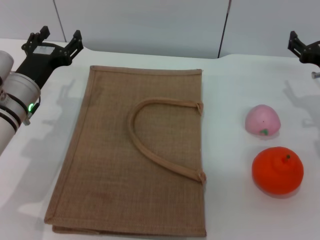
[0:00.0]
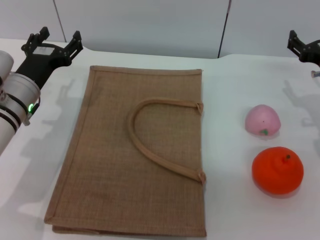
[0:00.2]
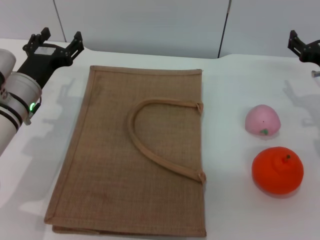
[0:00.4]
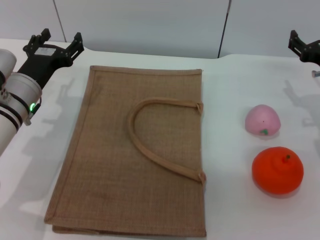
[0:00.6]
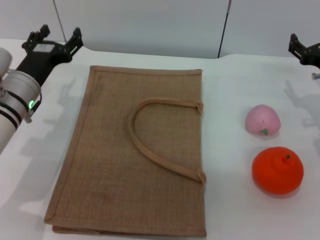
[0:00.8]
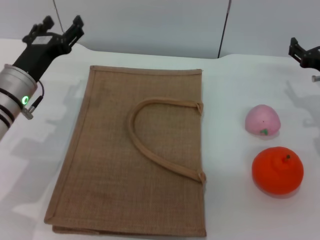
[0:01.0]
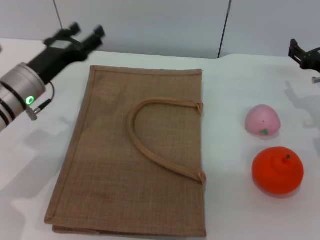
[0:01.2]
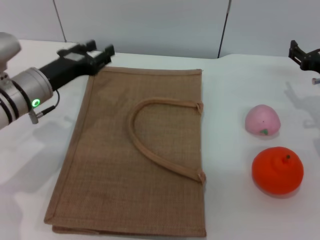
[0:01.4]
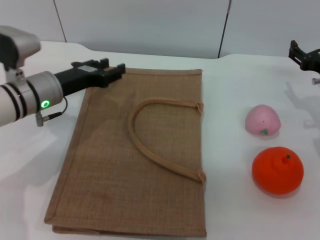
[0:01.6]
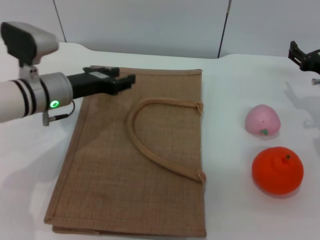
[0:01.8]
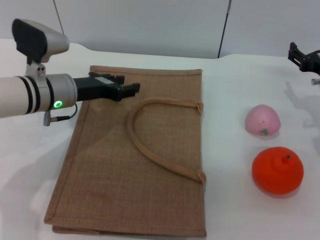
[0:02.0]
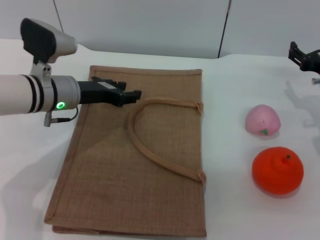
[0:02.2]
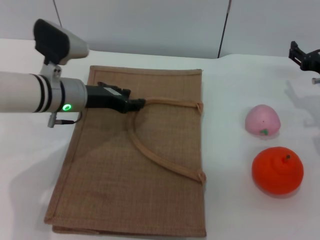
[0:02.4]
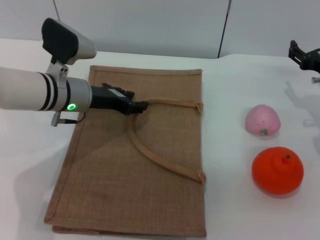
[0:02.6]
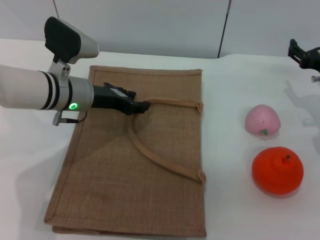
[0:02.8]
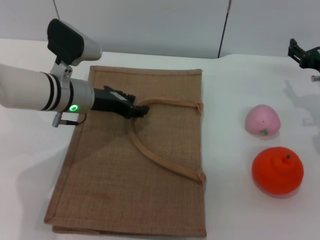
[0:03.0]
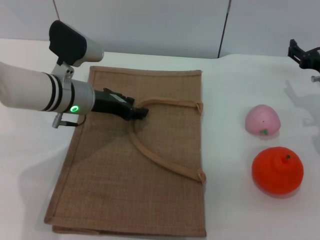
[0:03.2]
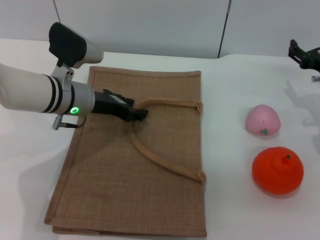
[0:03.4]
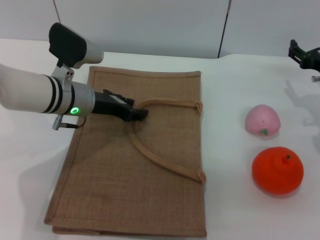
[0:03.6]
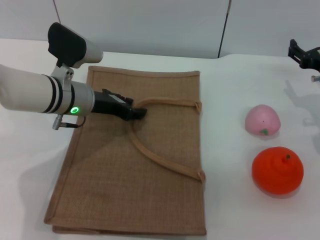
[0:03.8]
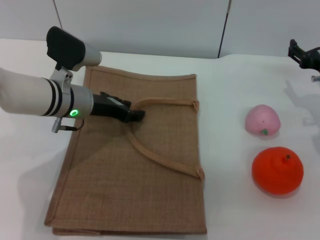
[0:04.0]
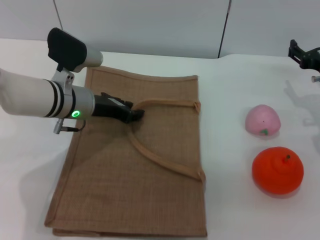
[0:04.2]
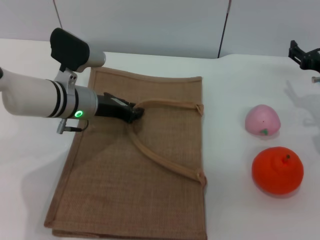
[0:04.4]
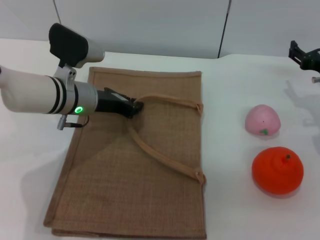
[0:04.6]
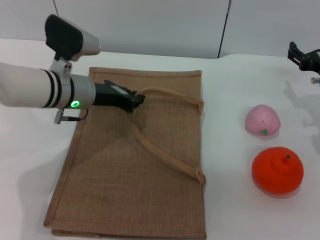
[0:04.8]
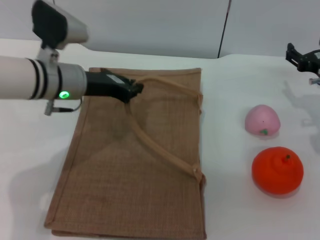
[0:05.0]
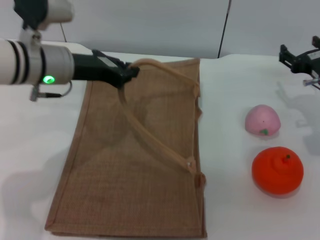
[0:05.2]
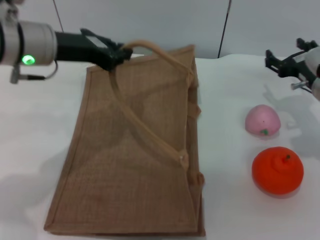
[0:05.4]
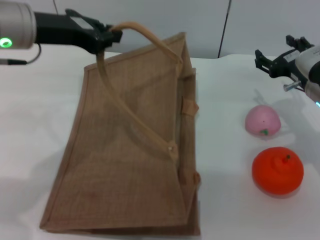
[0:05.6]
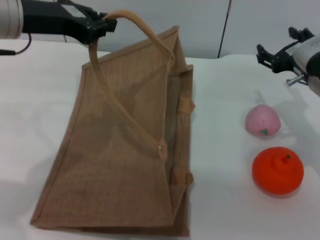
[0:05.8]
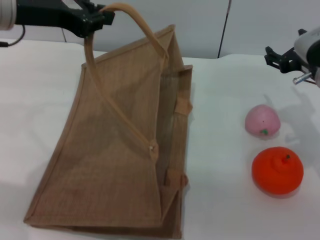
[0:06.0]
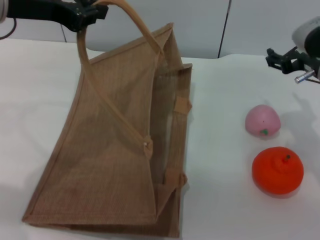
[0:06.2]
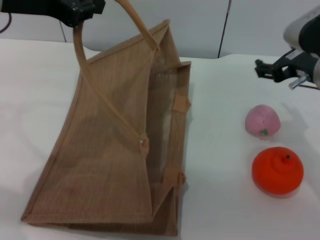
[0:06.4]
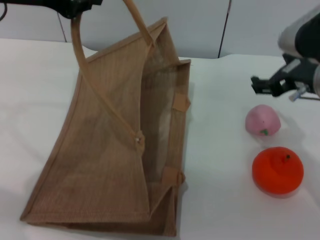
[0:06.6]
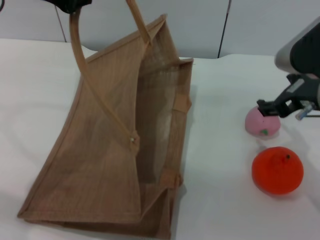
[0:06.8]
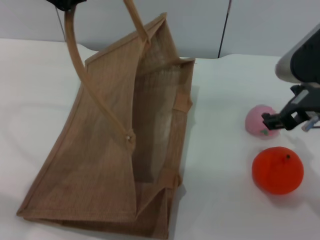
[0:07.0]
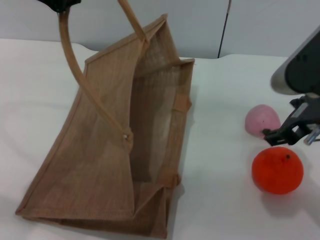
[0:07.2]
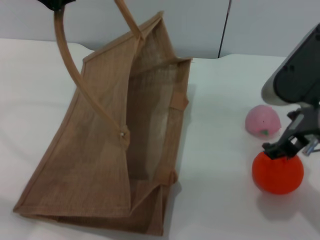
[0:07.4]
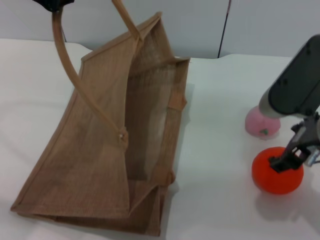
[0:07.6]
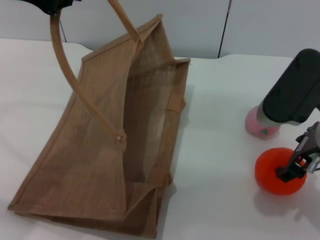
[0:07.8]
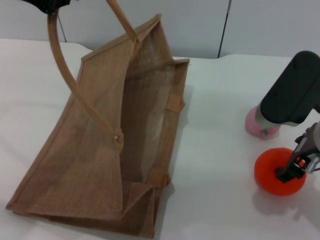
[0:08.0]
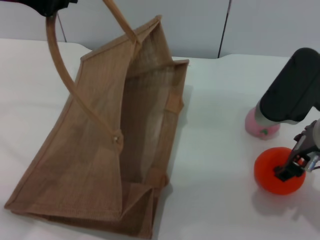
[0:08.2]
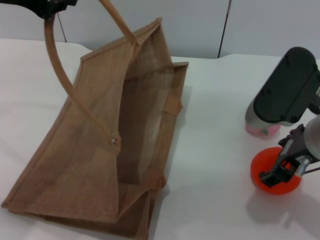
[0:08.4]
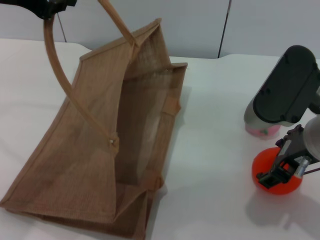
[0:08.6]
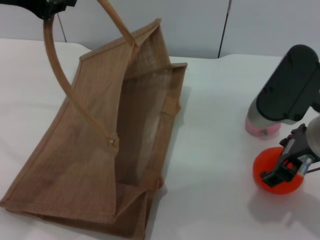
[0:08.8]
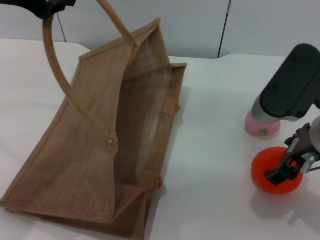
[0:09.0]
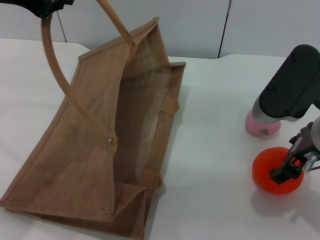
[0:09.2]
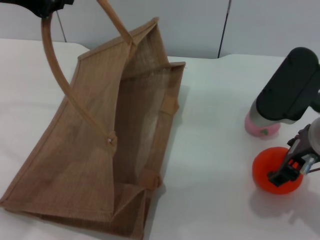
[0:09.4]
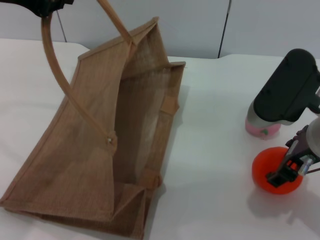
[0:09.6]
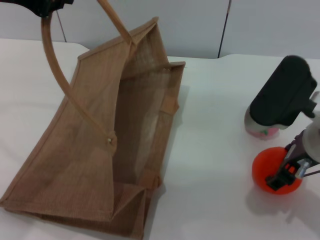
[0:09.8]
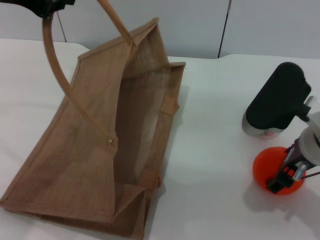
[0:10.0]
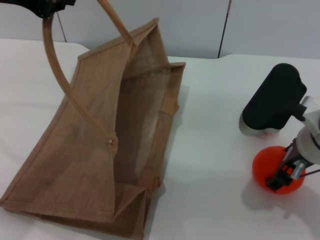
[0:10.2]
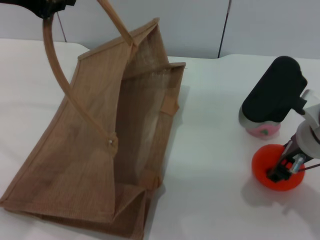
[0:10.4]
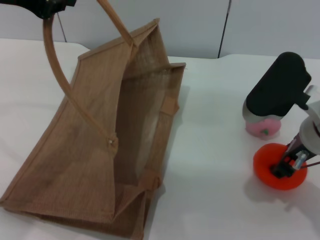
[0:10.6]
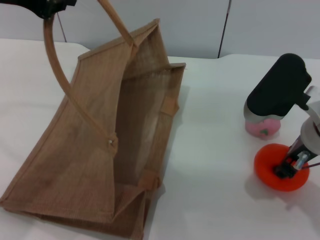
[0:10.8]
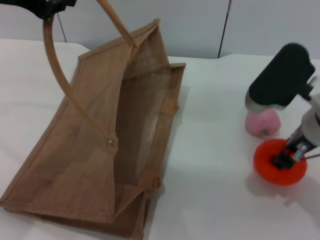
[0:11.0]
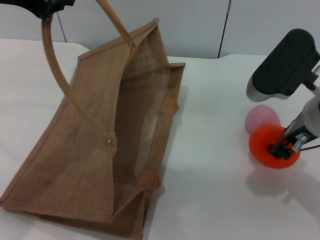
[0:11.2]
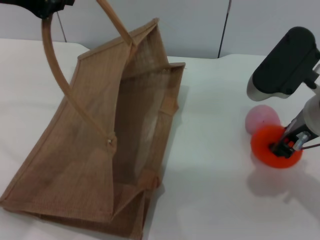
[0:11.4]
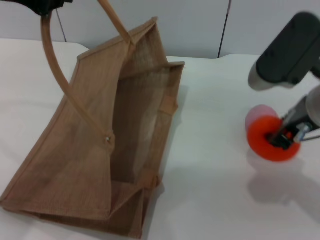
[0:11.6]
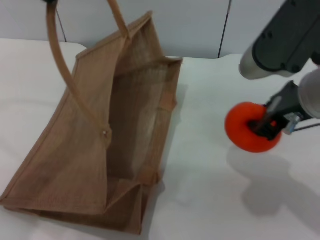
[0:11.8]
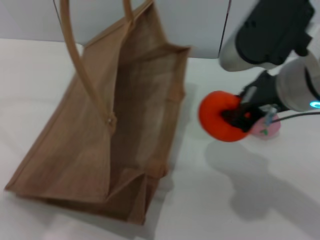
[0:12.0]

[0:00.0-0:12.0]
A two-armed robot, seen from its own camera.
Task of the whole recording: pick up the orange and peach from the table and place it in the brown handbag.
Step, 0:00.0 to 0:05.6: Lift the woven bag with the left gripper to open it.
Step, 0:05.8 to 0:11.4: Pick up the orange with the right gripper.
0:00.0 to 0:01.6: The left gripper closes.
0:01.6 to 0:03.0: The left gripper moves approximately 5 cm.
0:03.0 to 0:04.4: Neither gripper changes place.
0:04.4 to 0:06.0: The left gripper travels upward by roughly 20 cm, and closes, while the right gripper moves upward and to the left, approximately 10 cm.
0:06.0 to 0:07.6: The right gripper heads backward and upward, covering some 10 cm, while the left gripper shifts roughly 5 cm upward.
0:07.6 to 0:10.4: The grippers stay close to where they were, moving slightly.
0:10.4 to 0:12.0: The right gripper is displaced upward by roughly 10 cm, and closes up.

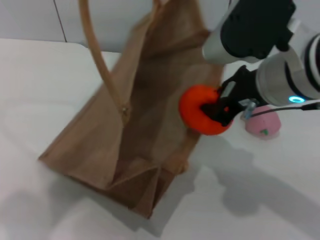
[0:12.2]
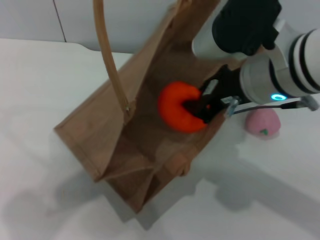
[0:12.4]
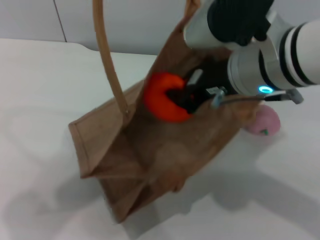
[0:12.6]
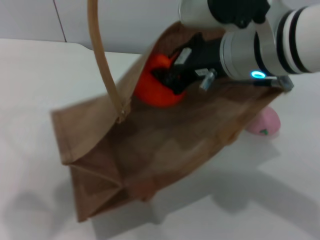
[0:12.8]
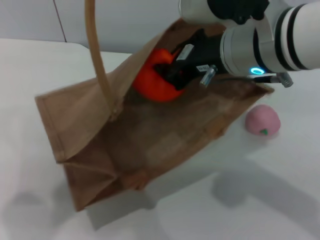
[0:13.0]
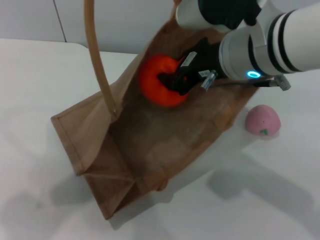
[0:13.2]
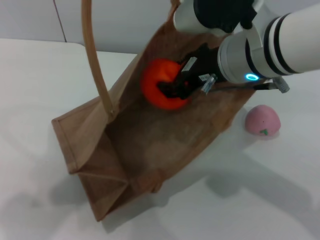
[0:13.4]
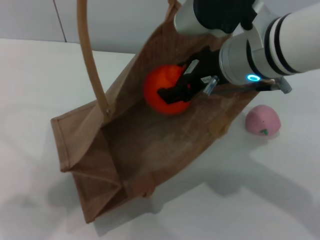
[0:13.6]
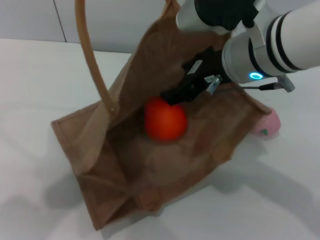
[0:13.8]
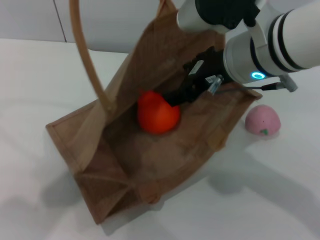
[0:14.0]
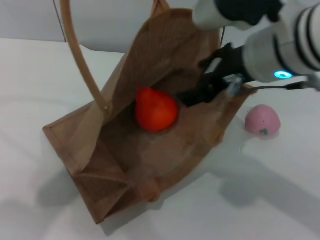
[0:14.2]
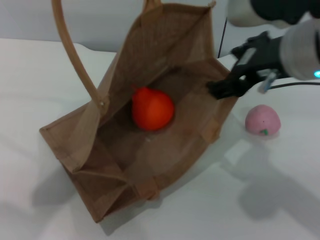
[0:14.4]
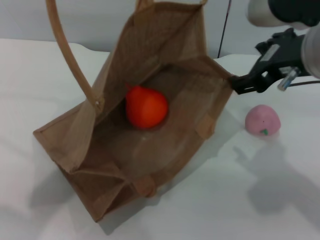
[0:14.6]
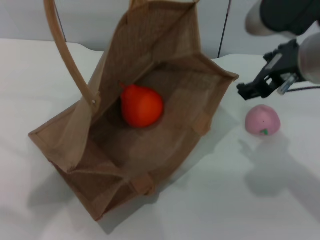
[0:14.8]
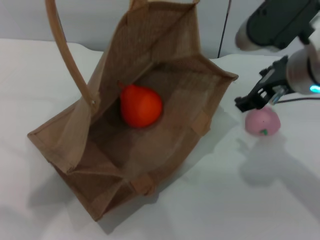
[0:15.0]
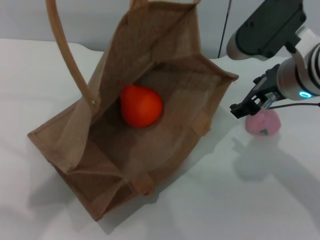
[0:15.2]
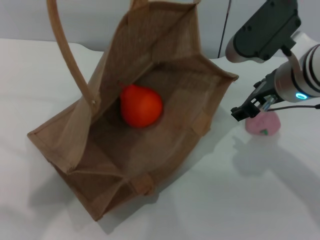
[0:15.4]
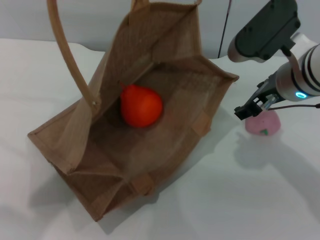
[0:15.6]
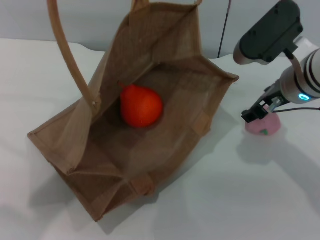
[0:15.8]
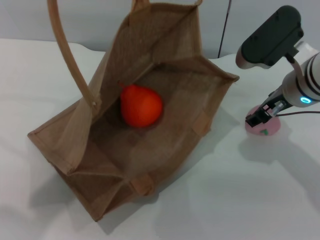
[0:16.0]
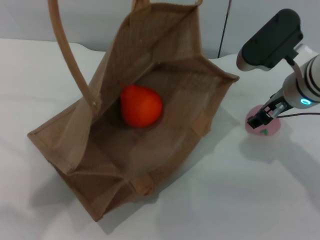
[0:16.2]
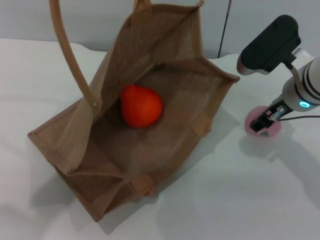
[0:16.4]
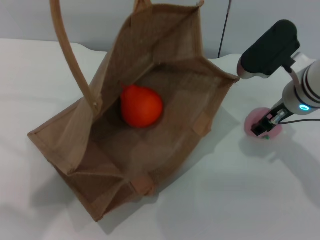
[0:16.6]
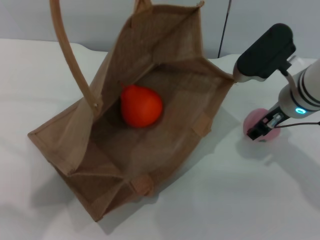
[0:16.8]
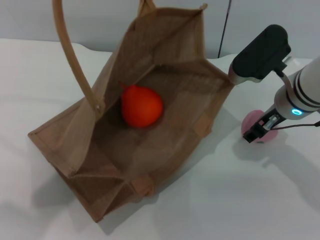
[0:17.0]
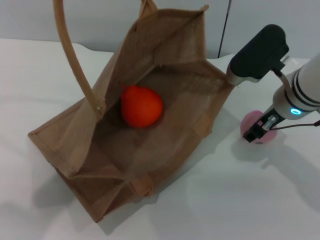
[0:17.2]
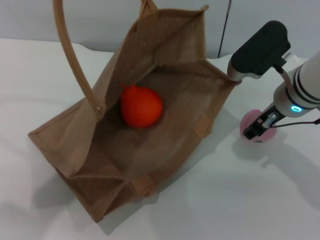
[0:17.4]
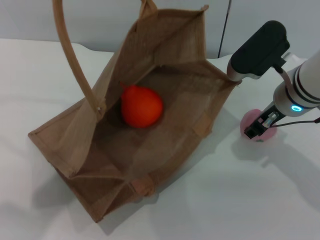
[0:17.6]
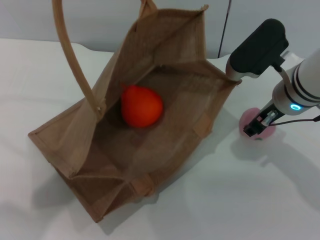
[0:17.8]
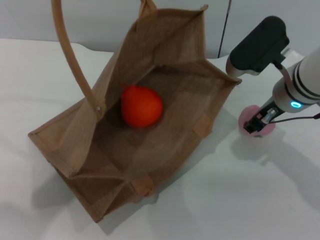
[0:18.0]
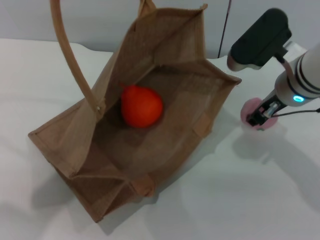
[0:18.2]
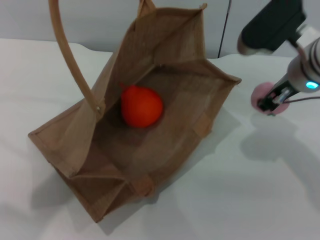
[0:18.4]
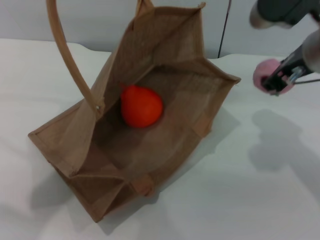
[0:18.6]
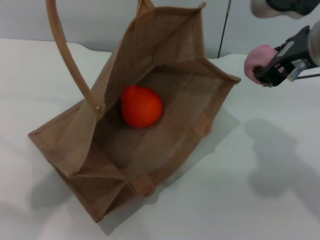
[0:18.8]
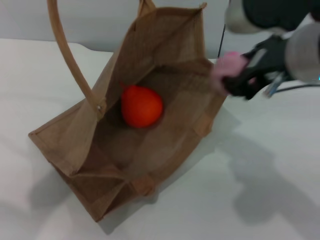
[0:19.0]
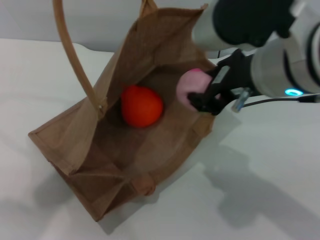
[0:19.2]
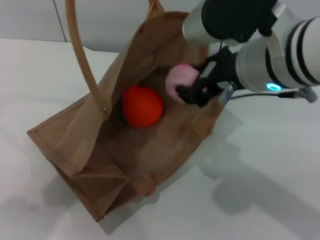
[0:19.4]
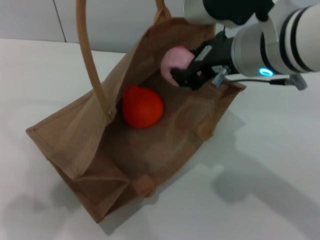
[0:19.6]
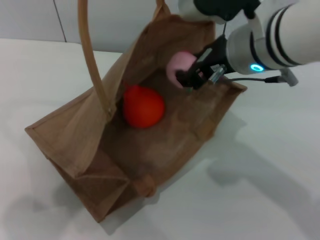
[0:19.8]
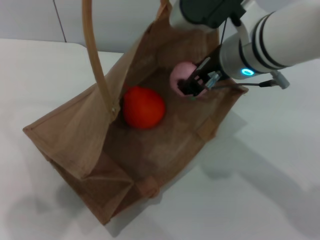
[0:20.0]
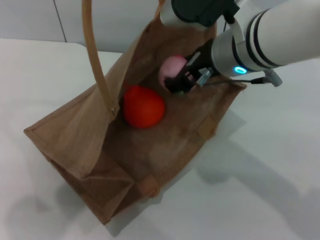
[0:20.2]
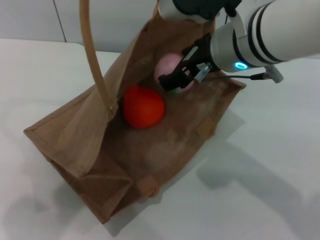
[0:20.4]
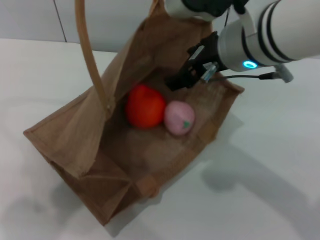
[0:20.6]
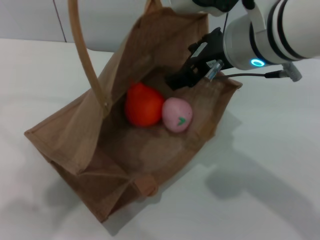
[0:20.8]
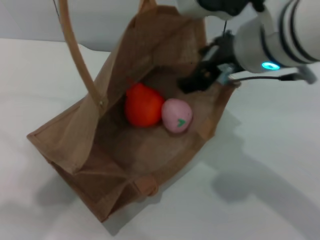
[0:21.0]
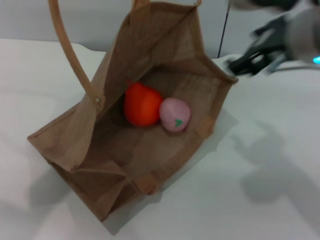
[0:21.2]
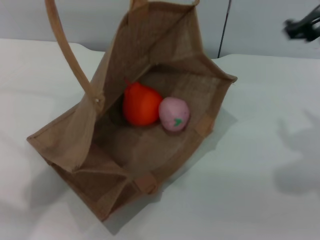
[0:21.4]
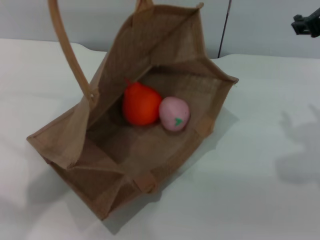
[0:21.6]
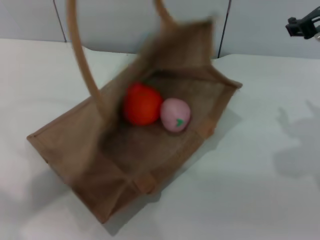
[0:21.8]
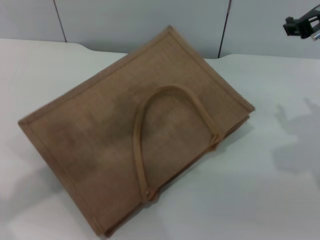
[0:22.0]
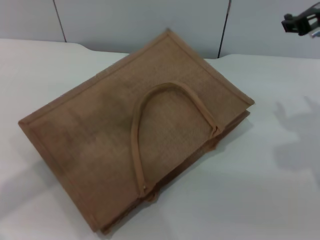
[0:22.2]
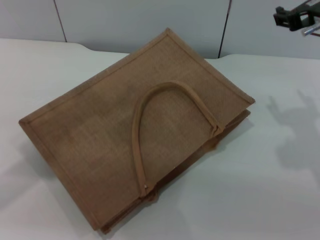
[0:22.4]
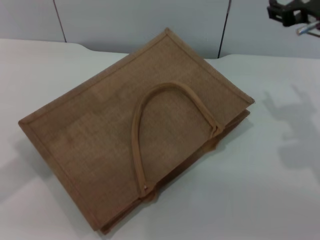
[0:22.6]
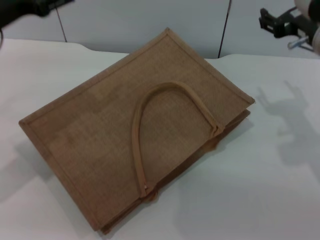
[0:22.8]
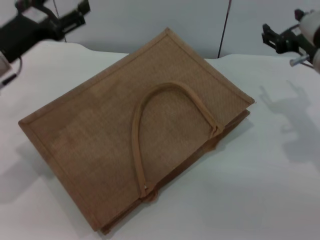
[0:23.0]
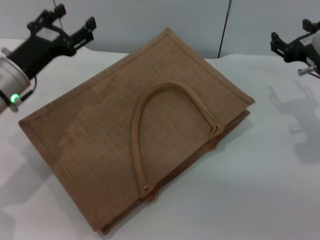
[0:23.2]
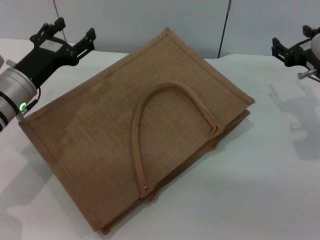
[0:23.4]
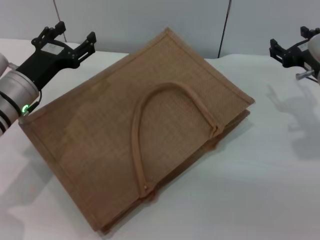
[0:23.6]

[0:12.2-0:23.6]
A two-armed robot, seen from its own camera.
Task of the whole recording: pick up the orange and peach from the table and place it in the brown handbag.
Step, 0:12.2 to 0:13.8: Place the orange into the woven bag with the right gripper.
Step, 0:14.0 to 0:18.0: Pick up the peach with the right gripper.
Step, 0:18.4 to 0:20.8: Place the peach into the woven bag with the right gripper.
Step, 0:21.0 to 0:22.2: Lower the woven bag with the left gripper to close it.
0:13.6 to 0:15.0: The right gripper goes roughly 5 cm to the right, and opens its fingers.
0:15.0 to 0:16.4: The right gripper travels downward by approximately 10 cm.
0:16.4 to 0:17.8: The grippers stay close to where they were, moving slightly.
0:17.8 to 0:19.4: The right gripper heads upward, backward and to the left, covering about 15 cm.
0:19.4 to 0:20.8: The right gripper opens up.
0:20.8 to 0:22.2: The left gripper shifts about 5 cm to the left, and opens. The right gripper heads to the right, covering roughly 10 cm.
0:22.2 to 0:23.6: The right gripper goes roughly 15 cm downward and to the right; the left gripper moves downward, about 25 cm.
